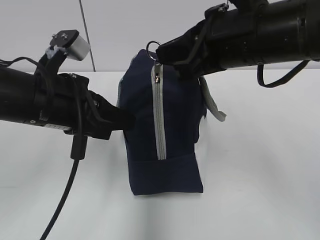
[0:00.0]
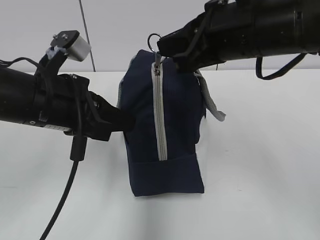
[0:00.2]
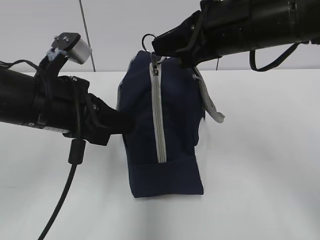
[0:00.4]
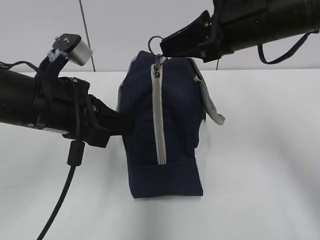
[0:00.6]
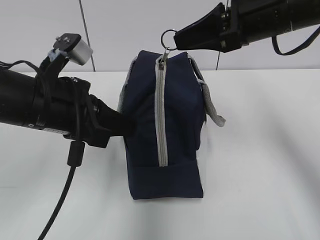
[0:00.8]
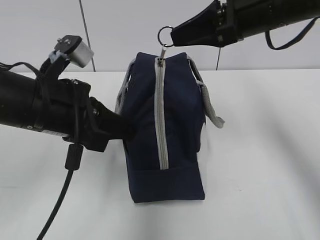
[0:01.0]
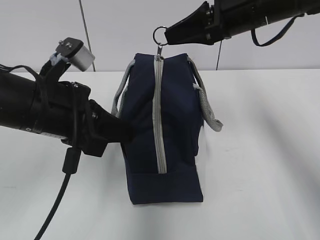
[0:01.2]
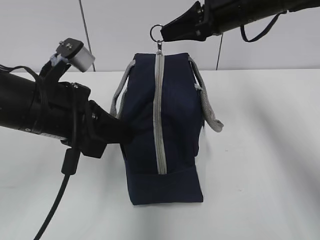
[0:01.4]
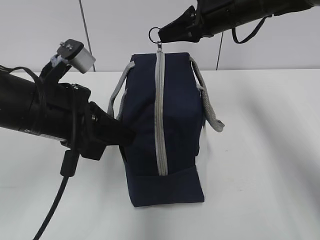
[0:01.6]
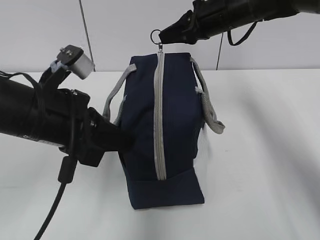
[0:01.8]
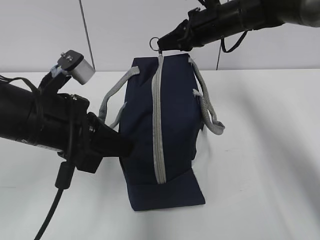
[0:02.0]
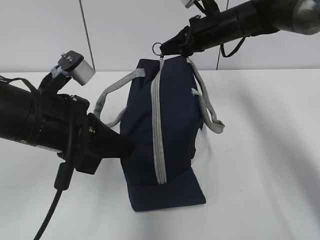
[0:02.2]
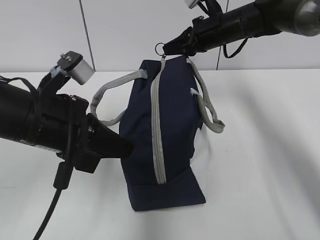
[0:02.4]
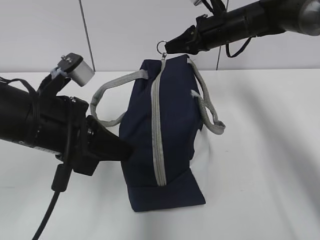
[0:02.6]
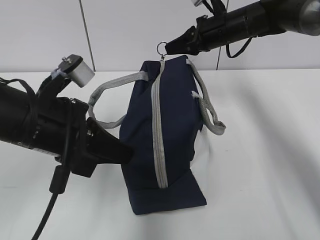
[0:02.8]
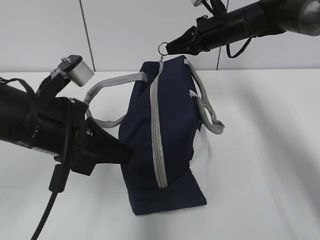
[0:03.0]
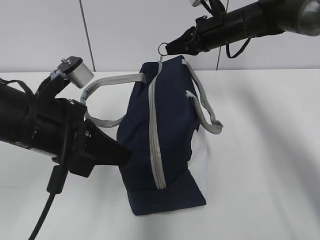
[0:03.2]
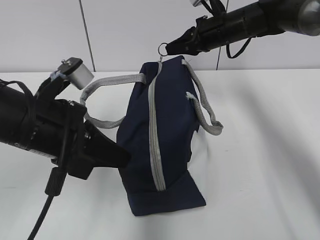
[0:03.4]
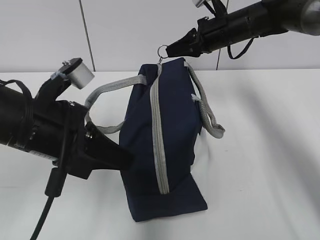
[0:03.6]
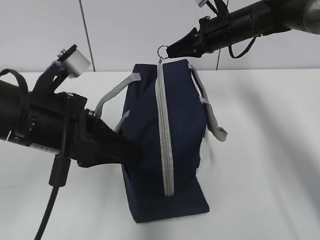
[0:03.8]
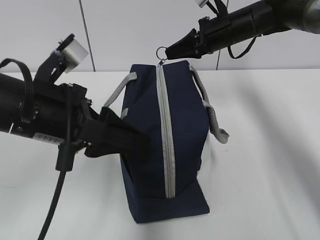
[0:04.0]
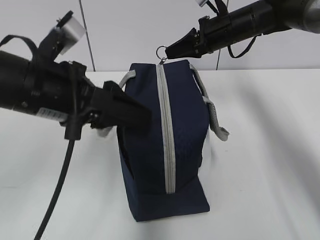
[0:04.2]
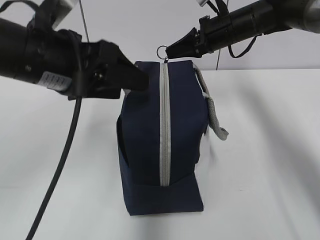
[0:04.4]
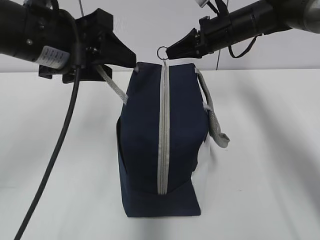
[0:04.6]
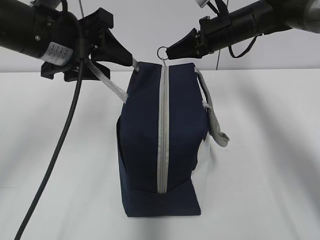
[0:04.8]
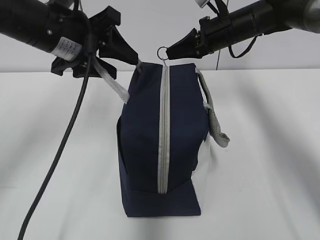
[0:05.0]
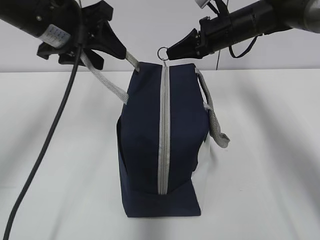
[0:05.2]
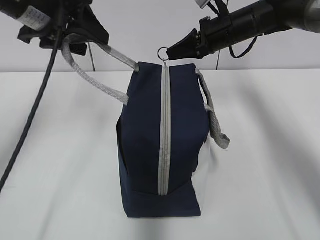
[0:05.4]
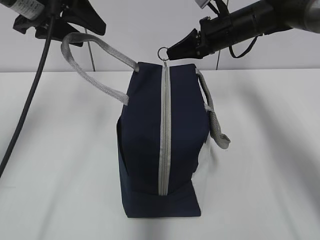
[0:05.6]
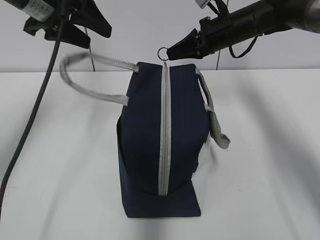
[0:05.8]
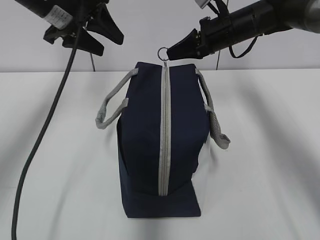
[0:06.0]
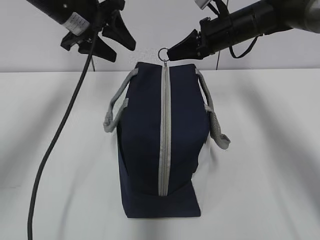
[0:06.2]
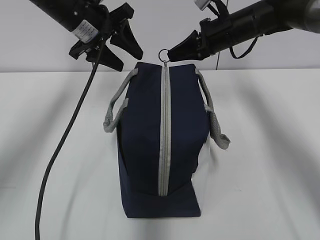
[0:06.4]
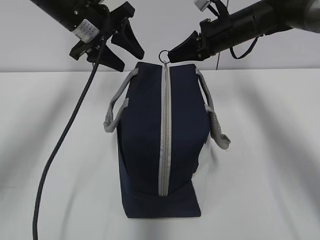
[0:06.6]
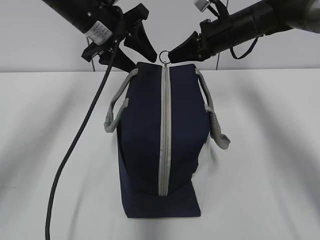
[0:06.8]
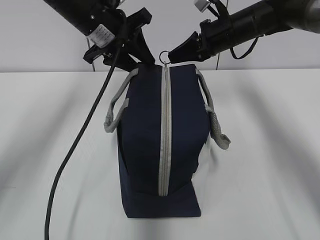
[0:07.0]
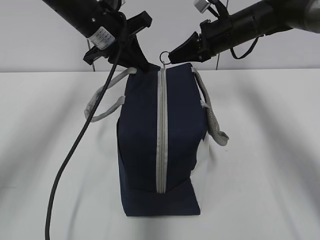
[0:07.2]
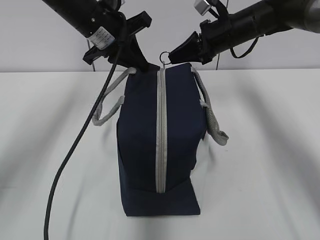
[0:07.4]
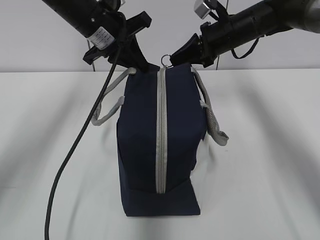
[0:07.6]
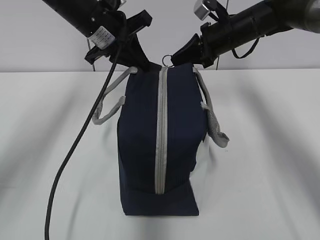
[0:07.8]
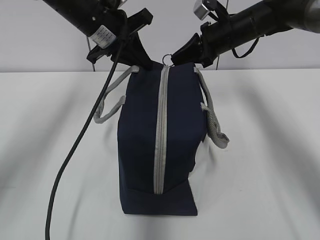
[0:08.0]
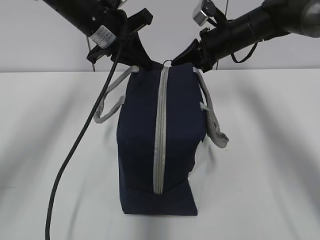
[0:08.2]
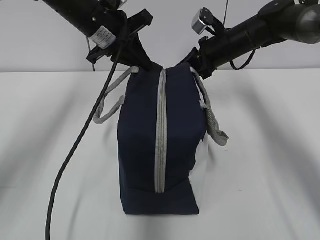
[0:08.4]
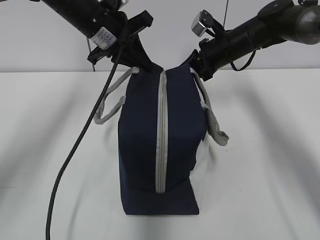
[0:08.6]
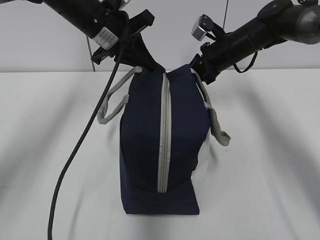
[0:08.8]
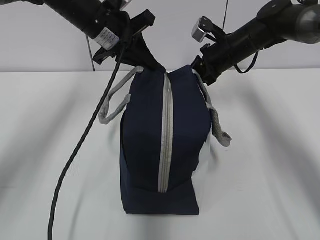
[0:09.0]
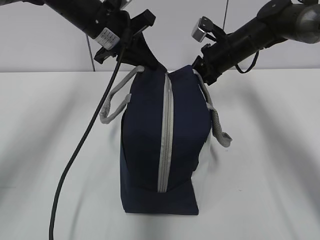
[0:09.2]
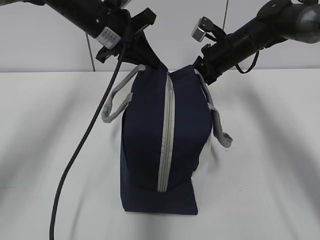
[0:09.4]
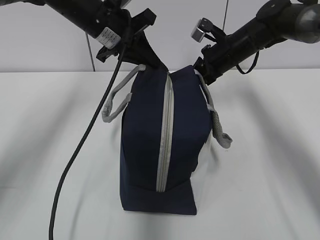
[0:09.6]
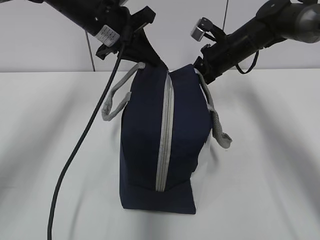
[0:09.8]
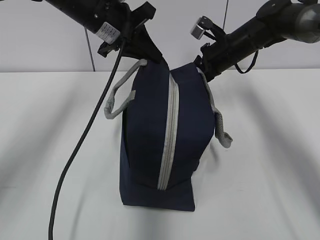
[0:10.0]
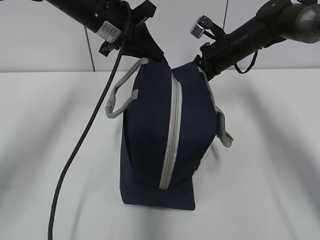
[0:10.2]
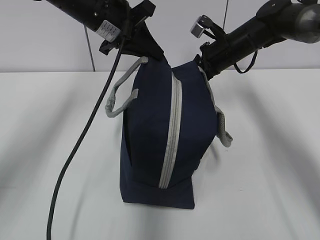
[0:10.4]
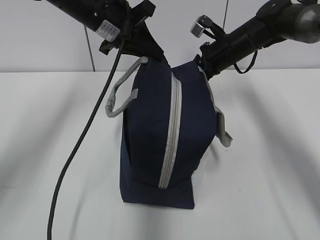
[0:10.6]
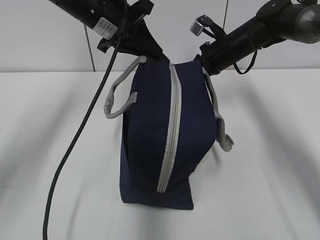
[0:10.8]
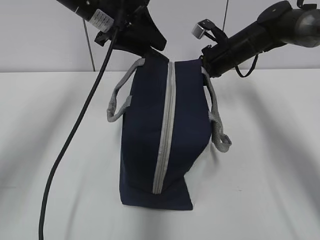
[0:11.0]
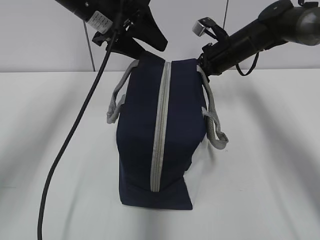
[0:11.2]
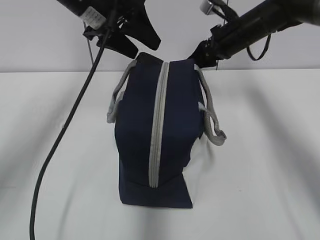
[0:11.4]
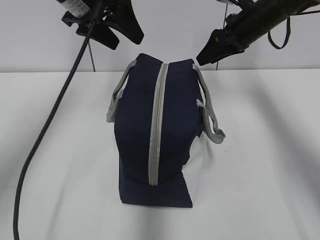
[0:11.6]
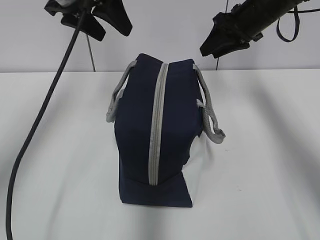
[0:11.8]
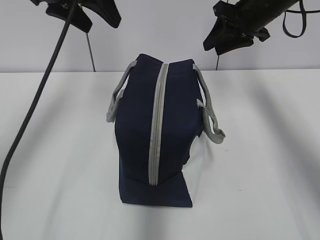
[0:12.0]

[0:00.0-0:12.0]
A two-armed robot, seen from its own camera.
Step, 0:10.6 to 0:11.0: Grab the lunch bag with your left hand.
0:00.0 to 0:01.6: The right gripper shifts roughly 15 cm forward.
0:01.6 to 0:03.0: The right gripper moves forward and downward, some 10 cm.
0:03.0 to 0:04.4: The left gripper is displaced upward by about 5 cm, and opens.
0:04.4 to 0:06.0: The left gripper moves forward, some 15 cm.
0:06.0 to 0:07.6: The left gripper travels to the right by approximately 5 cm, and closes.
0:07.6 to 0:10.4: There are only small adjustments of the grippers.
0:10.4 to 0:12.0: The right gripper heads upward, covering approximately 10 cm, and opens. The left gripper is displaced upward and to the left by approximately 10 cm, and opens up.

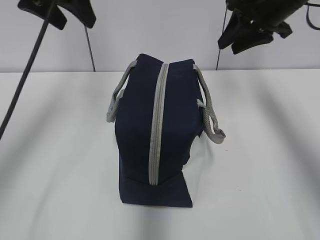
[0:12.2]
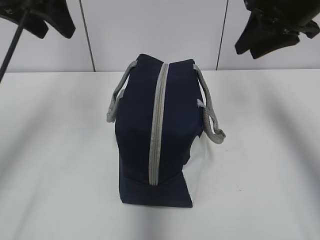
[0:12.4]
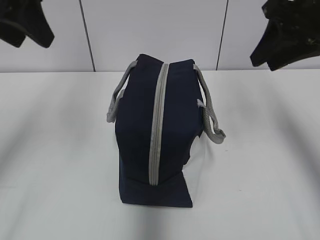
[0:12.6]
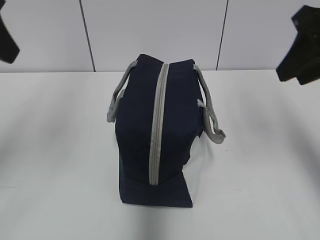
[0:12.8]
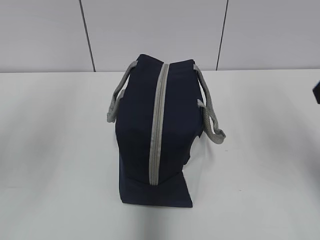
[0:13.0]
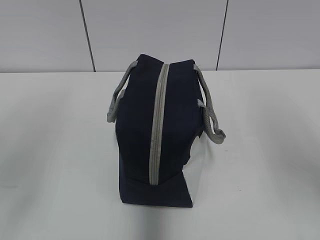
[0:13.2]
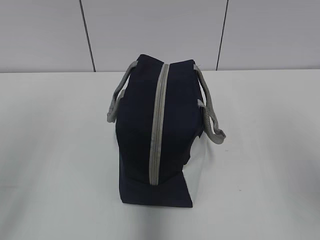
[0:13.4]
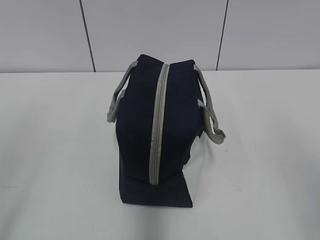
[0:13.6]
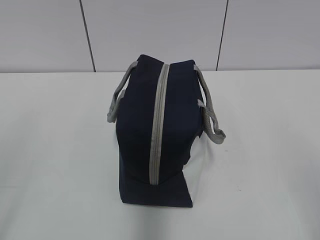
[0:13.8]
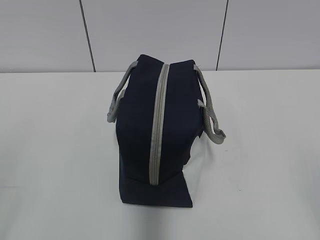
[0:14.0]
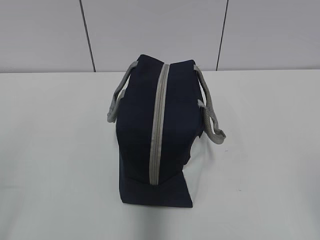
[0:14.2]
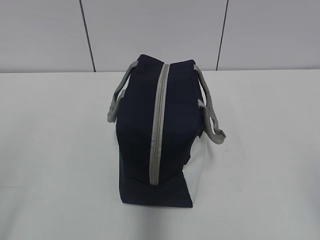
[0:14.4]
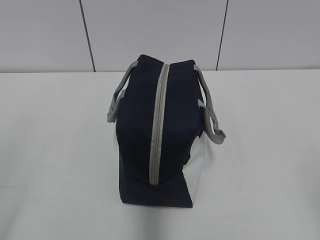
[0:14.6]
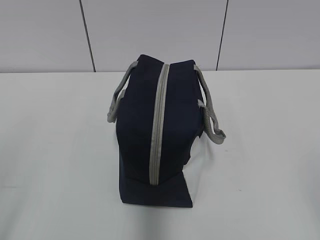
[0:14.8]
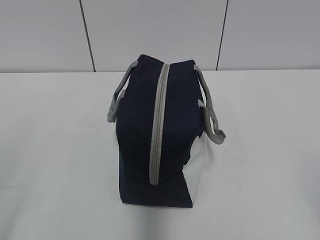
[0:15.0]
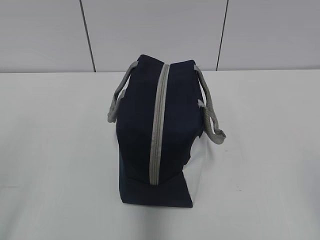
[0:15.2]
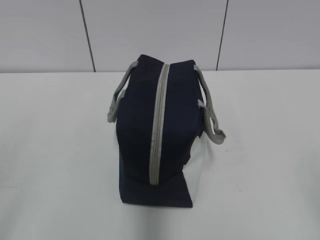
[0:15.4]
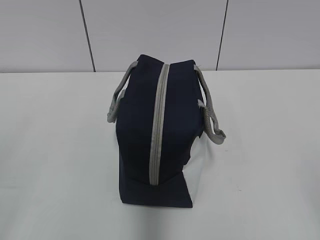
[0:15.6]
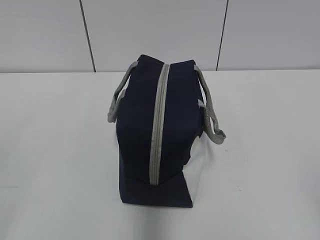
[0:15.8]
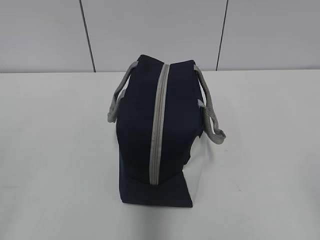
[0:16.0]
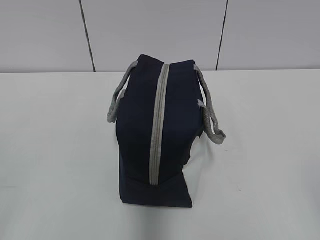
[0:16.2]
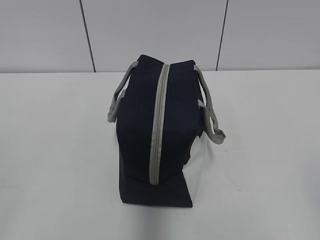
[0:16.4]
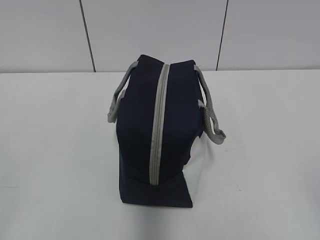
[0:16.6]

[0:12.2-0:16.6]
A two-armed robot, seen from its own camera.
0:12.2 to 0:13.6: The two grippers go some 35 cm backward.

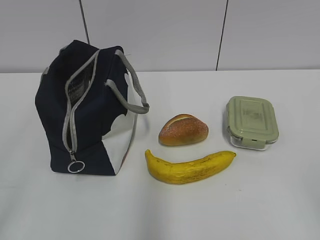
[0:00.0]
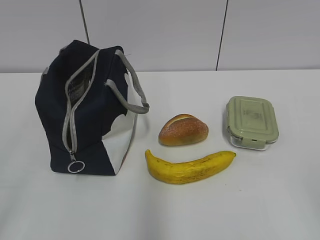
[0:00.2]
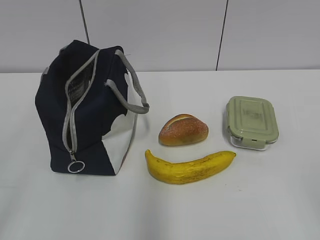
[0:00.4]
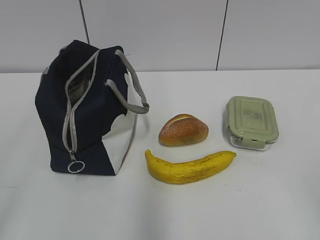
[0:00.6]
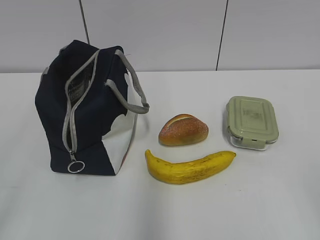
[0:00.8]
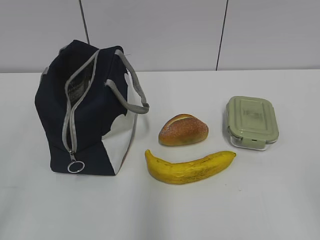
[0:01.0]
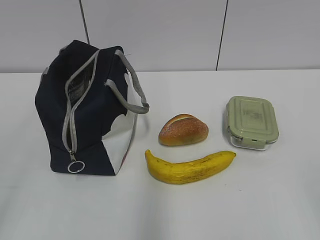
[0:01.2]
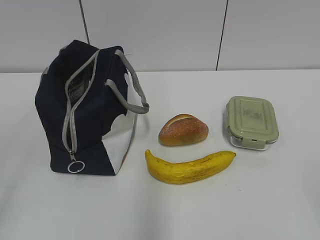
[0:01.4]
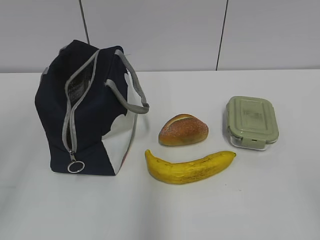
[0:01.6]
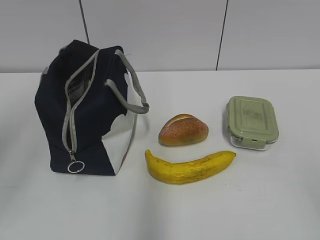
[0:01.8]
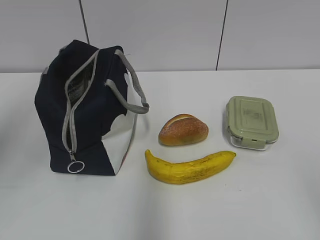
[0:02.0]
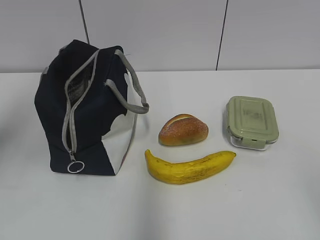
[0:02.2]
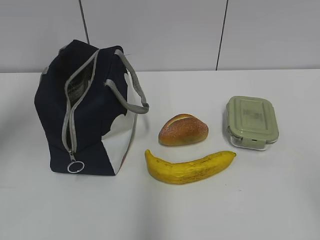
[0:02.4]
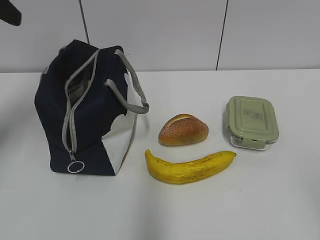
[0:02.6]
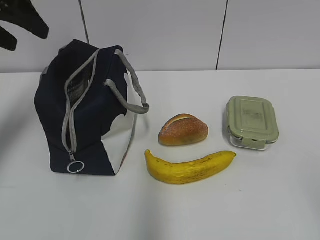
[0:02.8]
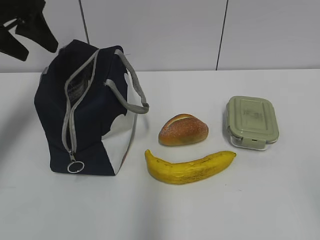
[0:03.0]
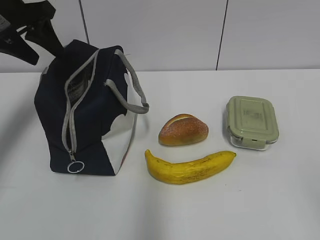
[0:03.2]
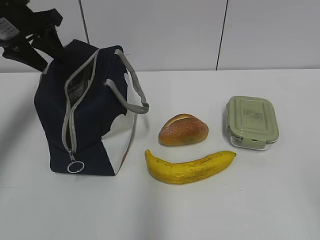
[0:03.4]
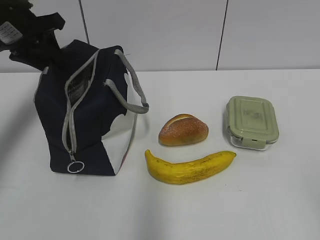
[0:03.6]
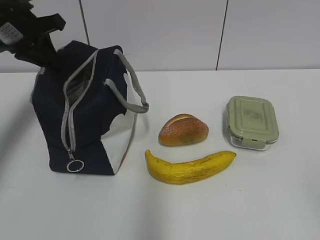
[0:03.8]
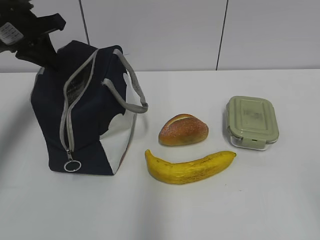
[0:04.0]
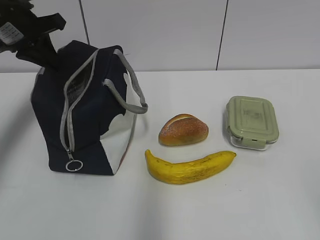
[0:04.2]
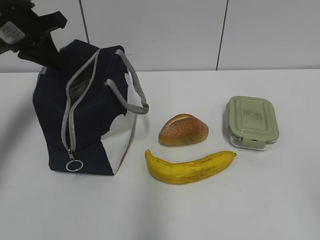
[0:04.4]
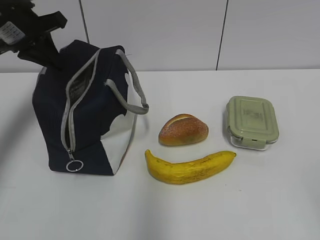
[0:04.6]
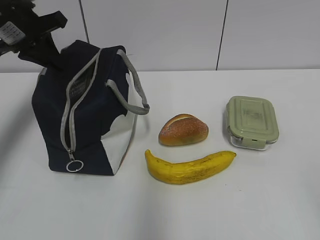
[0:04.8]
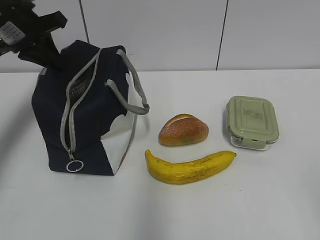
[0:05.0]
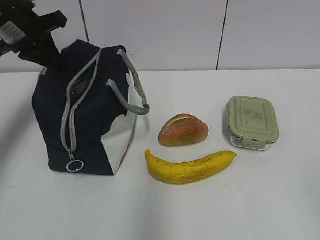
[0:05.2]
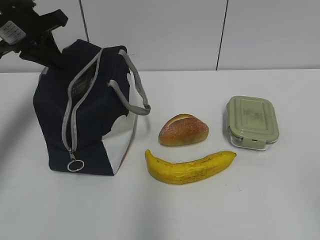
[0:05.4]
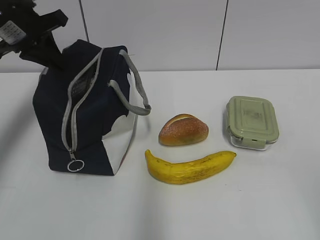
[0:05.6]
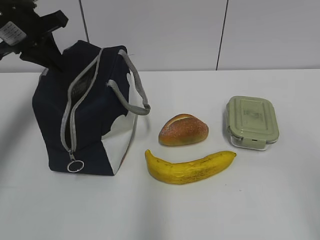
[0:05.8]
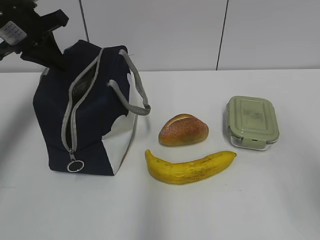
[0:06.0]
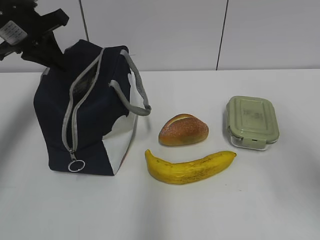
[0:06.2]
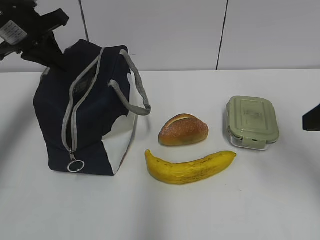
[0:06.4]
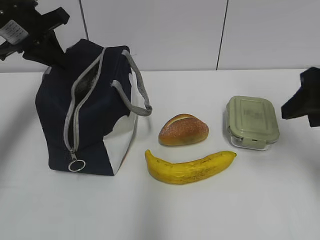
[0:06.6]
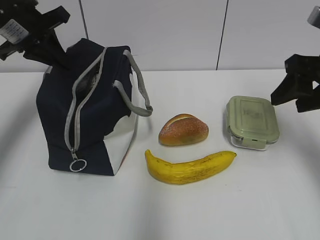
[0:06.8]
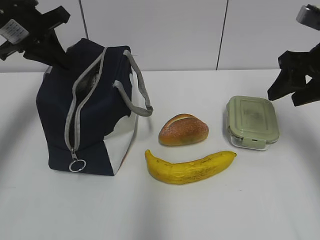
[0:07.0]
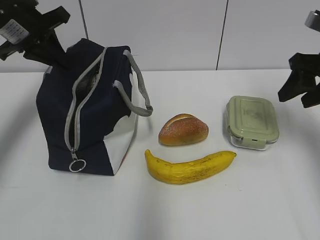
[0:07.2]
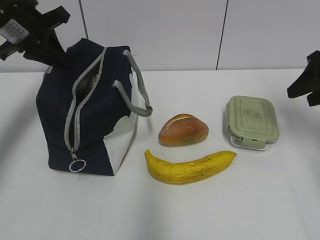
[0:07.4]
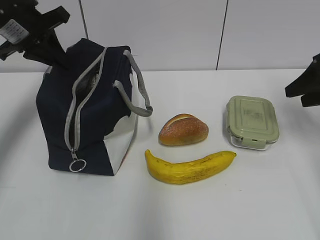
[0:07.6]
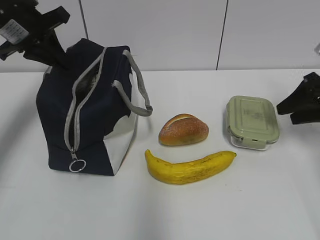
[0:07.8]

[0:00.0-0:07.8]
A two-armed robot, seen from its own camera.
0:01.6 to 0:03.2: The left gripper travels forward by about 35 cm.
0:03.2 to 0:04.6: The left gripper closes.
0:04.6 to 0:06.2: The right gripper travels forward by about 15 cm.
0:06.2 to 0:07.8: The right gripper shifts some 25 cm forward, downward and to the right.
